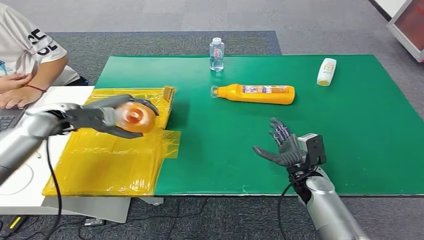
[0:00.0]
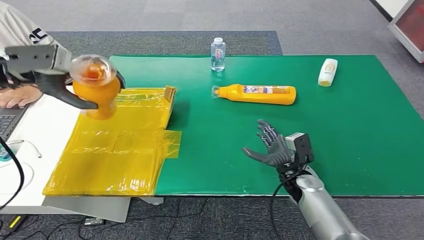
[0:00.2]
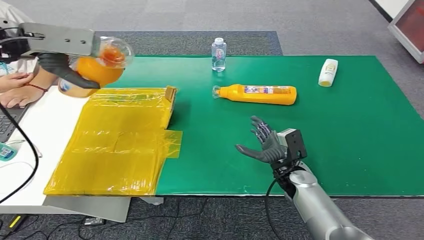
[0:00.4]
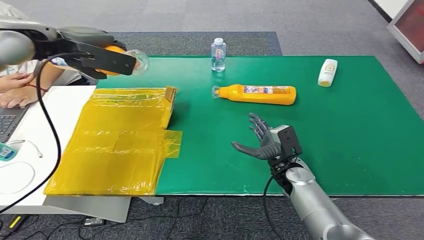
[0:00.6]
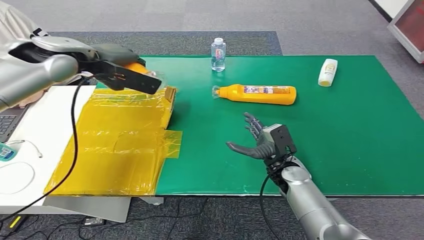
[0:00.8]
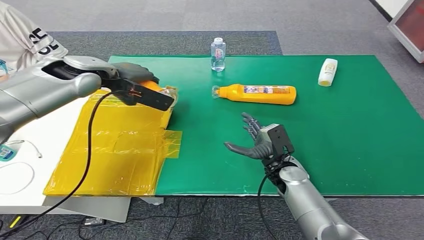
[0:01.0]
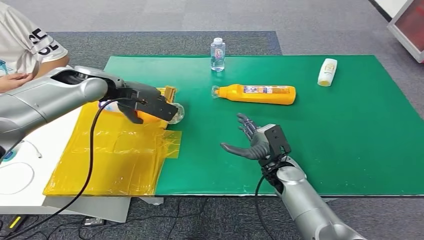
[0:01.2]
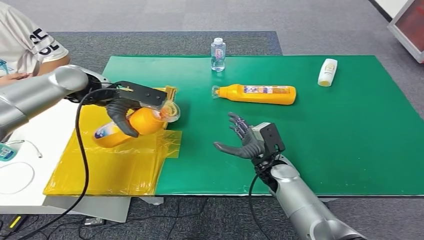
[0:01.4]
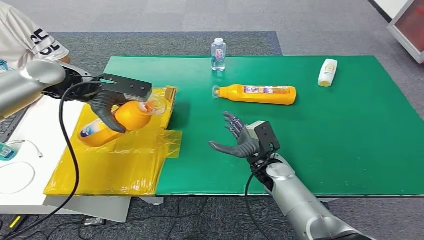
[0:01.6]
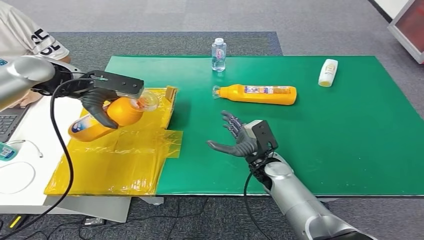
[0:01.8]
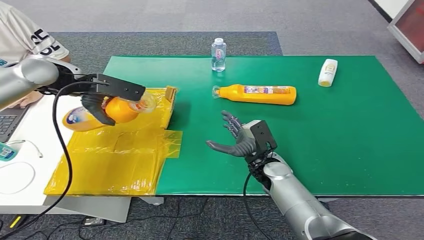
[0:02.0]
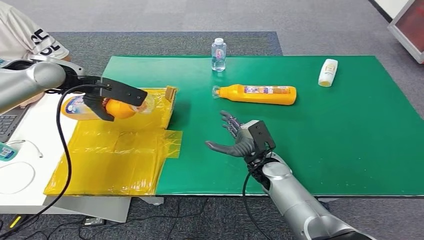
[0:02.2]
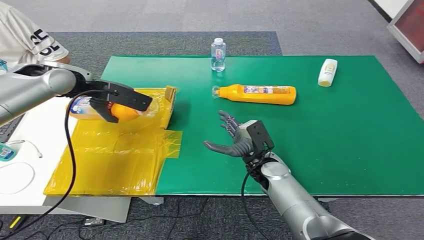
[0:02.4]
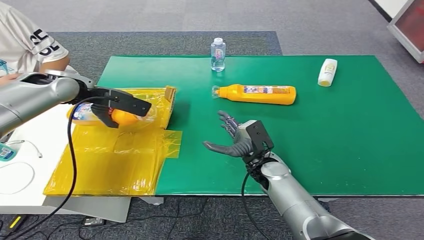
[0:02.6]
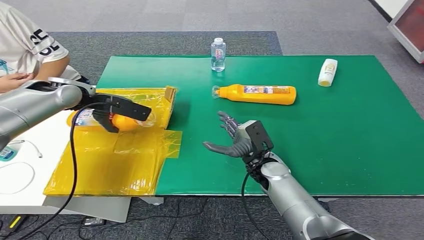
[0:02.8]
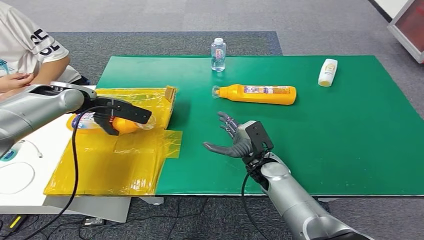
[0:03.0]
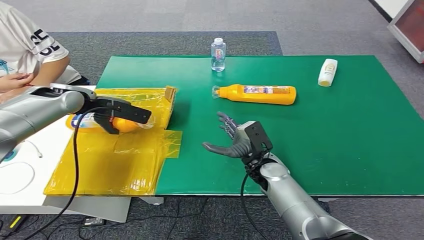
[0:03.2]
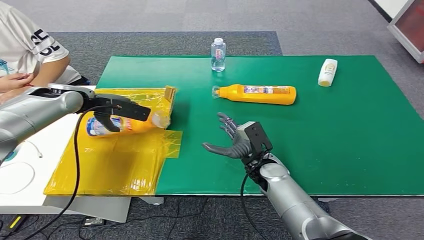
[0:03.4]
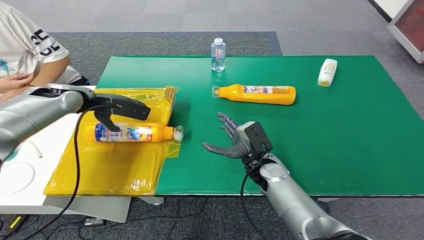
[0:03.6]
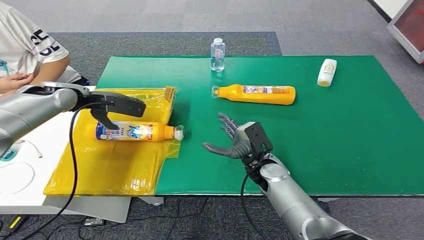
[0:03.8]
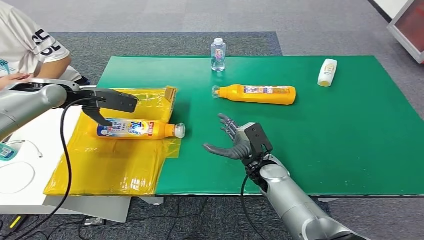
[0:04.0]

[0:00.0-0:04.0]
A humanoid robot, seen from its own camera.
Step, 0:00.0 to 0:04.0: Turn the bottle to the front side.
0:02.6 to 0:04.0: There are only small adjustments of the hands.
